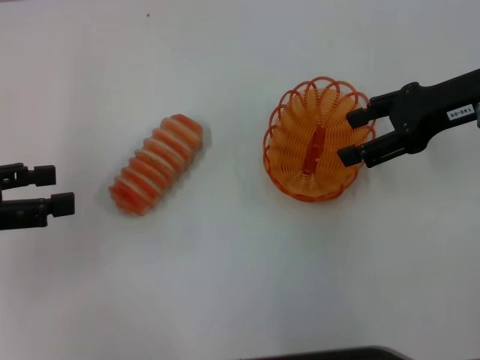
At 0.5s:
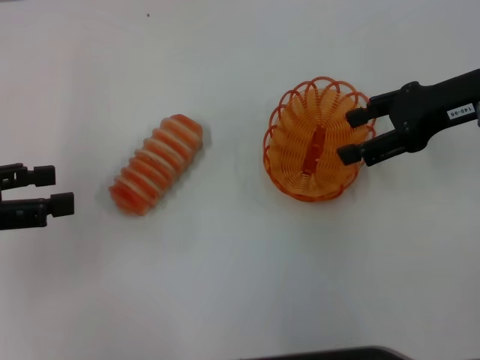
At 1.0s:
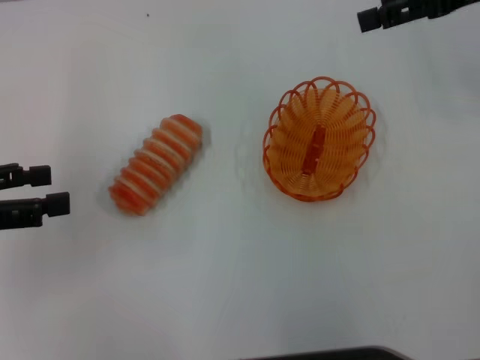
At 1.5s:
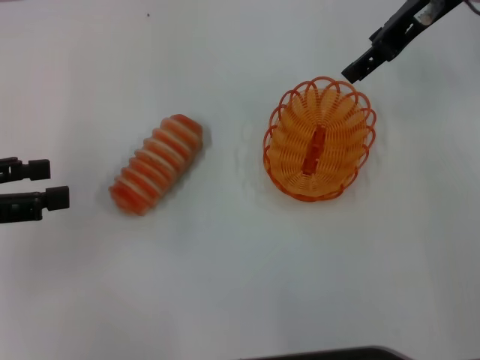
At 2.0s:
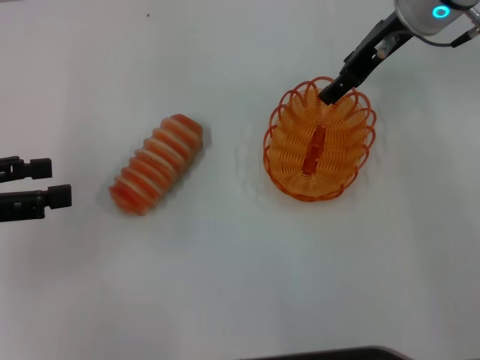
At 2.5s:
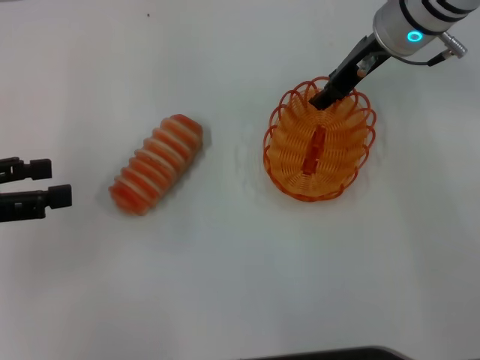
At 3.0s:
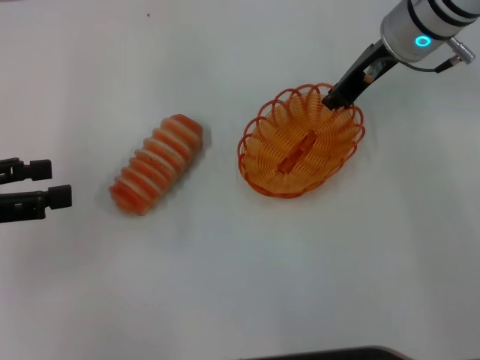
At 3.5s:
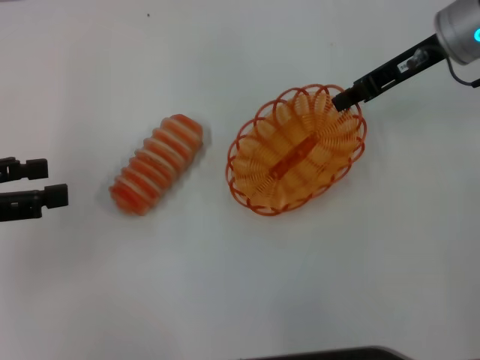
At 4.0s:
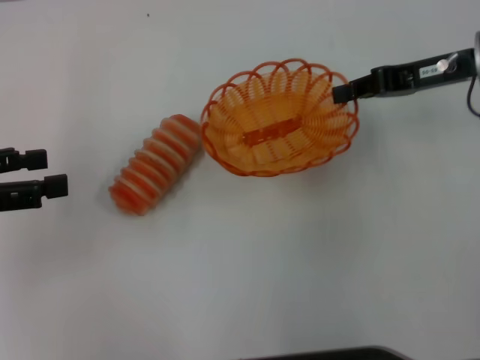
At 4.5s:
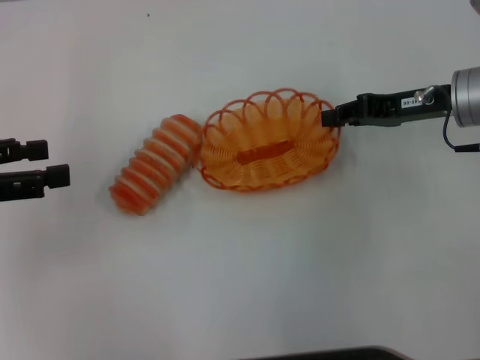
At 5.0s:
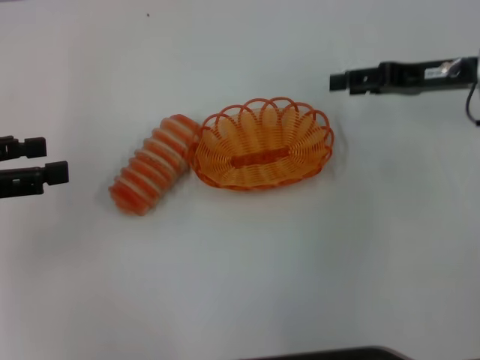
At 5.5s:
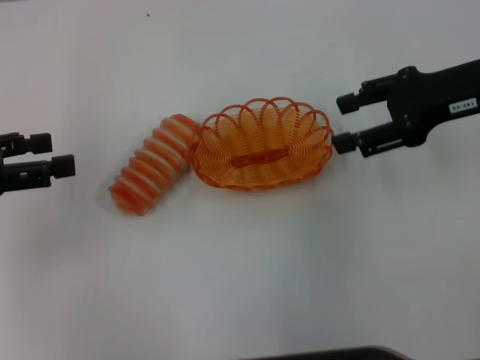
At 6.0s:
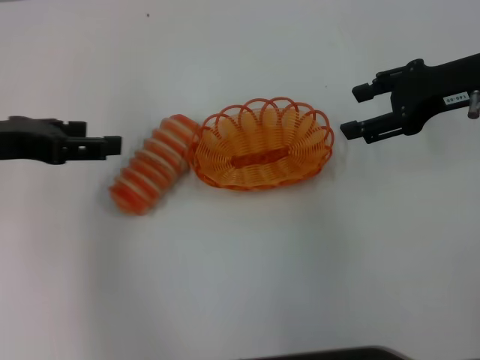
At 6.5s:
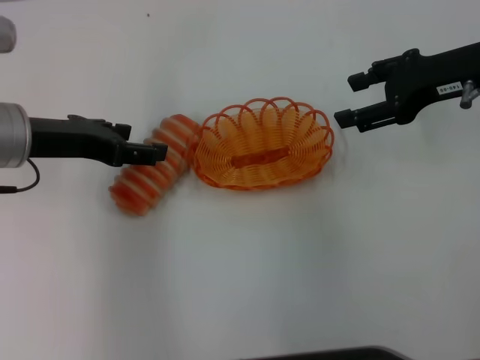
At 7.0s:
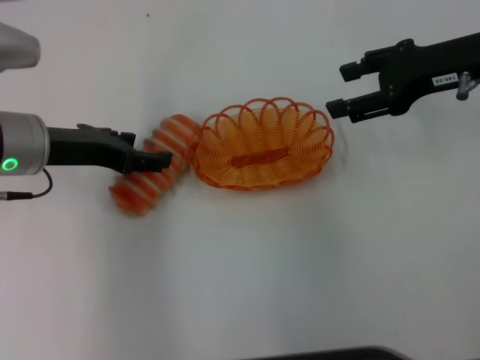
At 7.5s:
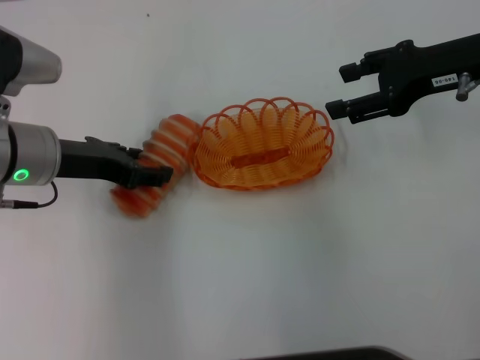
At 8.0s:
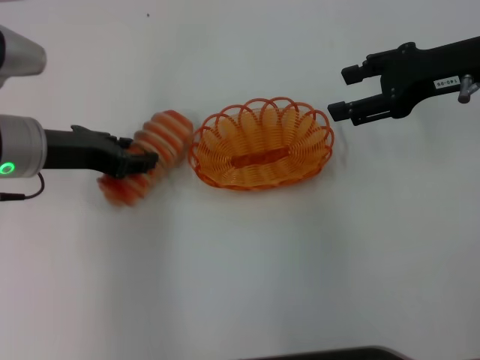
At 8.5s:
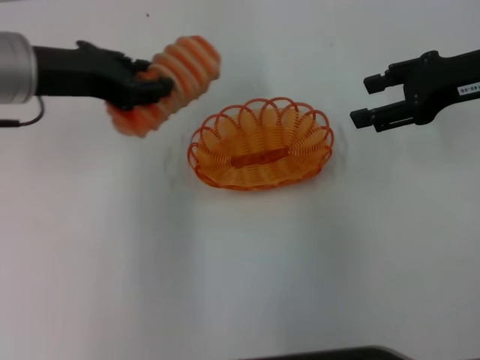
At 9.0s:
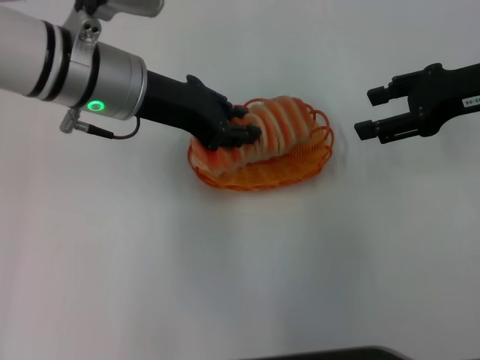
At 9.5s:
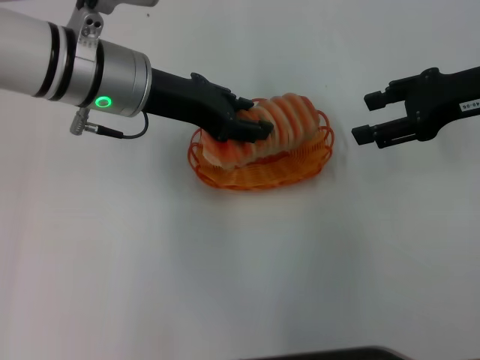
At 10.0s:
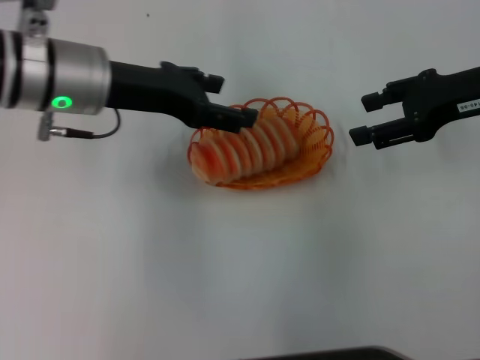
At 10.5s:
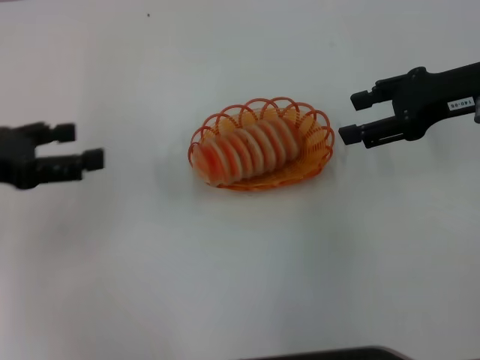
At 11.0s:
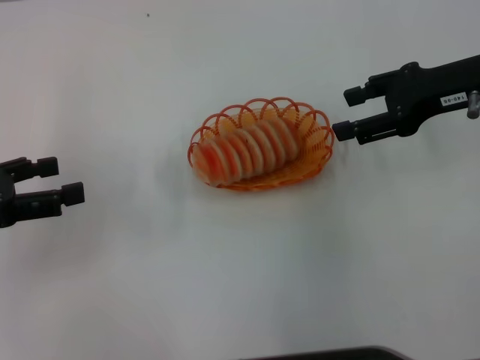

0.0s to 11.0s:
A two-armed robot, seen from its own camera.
Step, 0.0s to 3.5s: Pick up the basket with the right gripper.
Step, 4.0s to 5.0s: Place the basket in the center of view with the right gripper.
Step, 5.5s to 8.0s: Pick up the long bread with the left gripper.
Step, 8.5s to 10.0s: Place the long bread into the basket with the left gripper.
0.0s to 2.0s: The right gripper travels forward and to the left by approximately 10 cm.
2.0s to 3.5s: The right gripper changes place by roughly 5 cm, and closes its fingers.
3.5s to 5.5s: The right gripper shifts approximately 5 cm backward, and opens up.
5.5s to 7.5s: The left gripper shifts approximately 15 cm to the right and forward.
7.5s to 9.0s: The left gripper heads to the right and upward, covering roughly 10 cm, and closes.
9.0s to 11.0s: The left gripper shifts roughly 25 cm to the left and backward, and opens.
